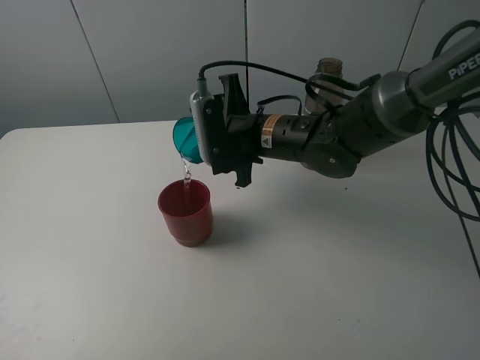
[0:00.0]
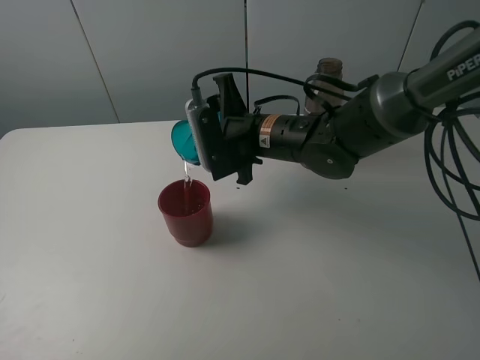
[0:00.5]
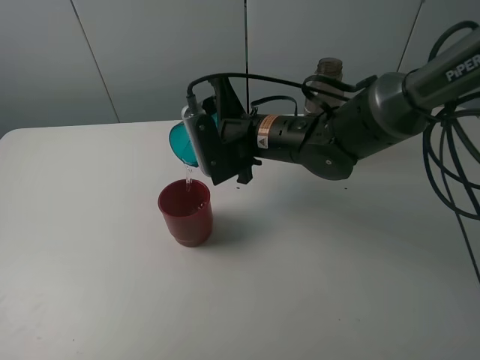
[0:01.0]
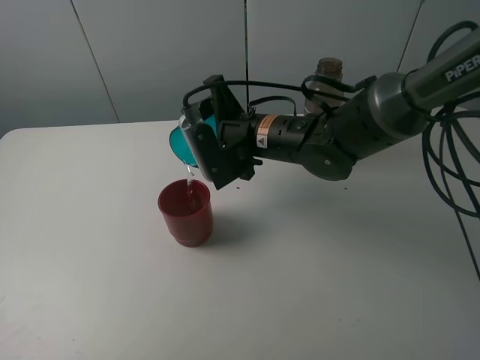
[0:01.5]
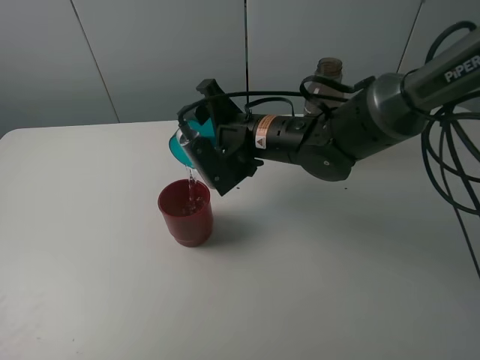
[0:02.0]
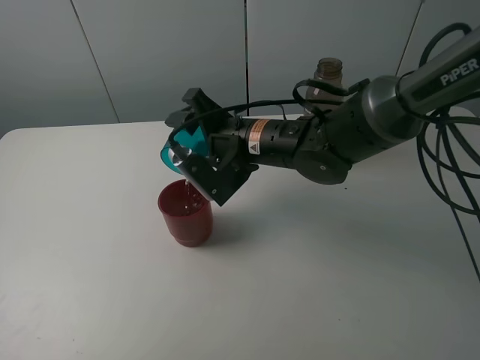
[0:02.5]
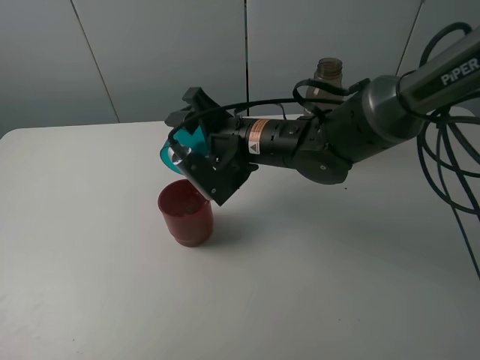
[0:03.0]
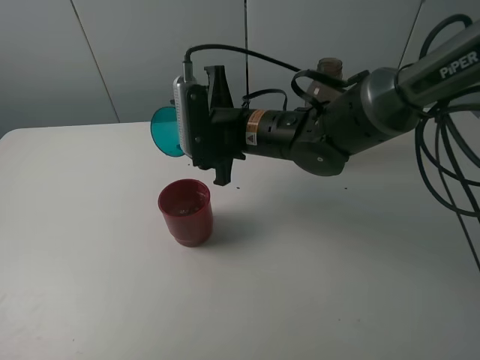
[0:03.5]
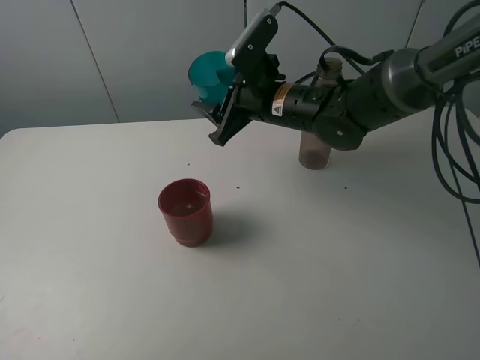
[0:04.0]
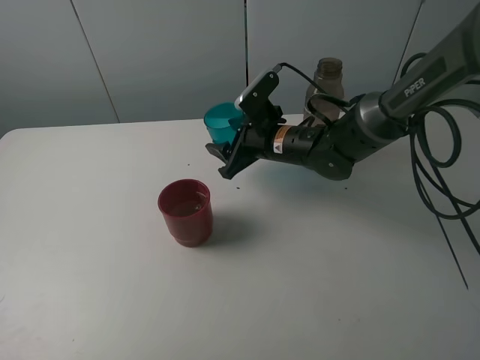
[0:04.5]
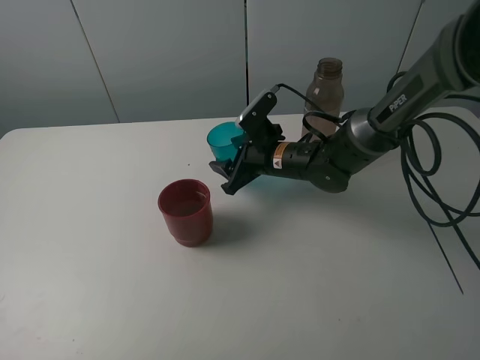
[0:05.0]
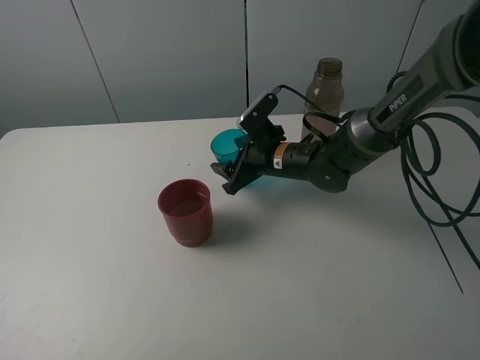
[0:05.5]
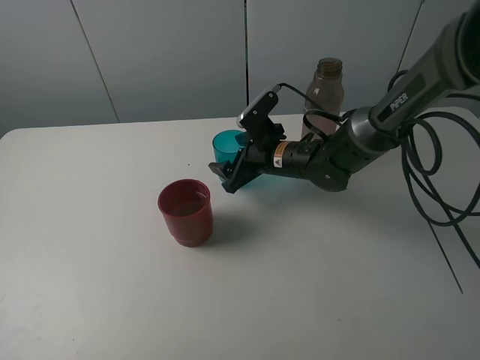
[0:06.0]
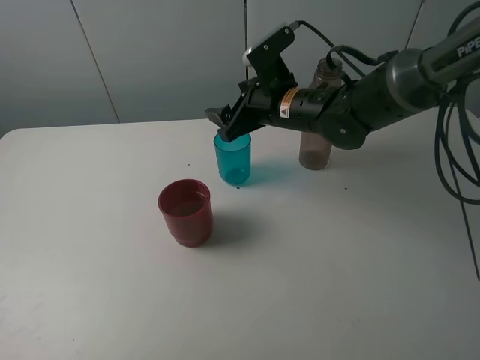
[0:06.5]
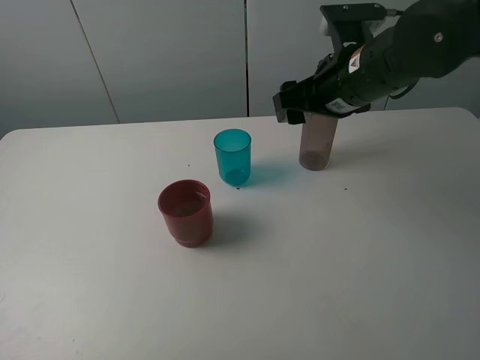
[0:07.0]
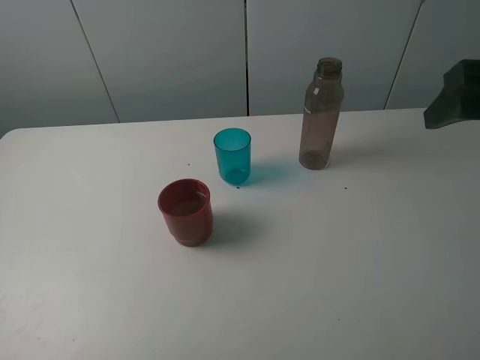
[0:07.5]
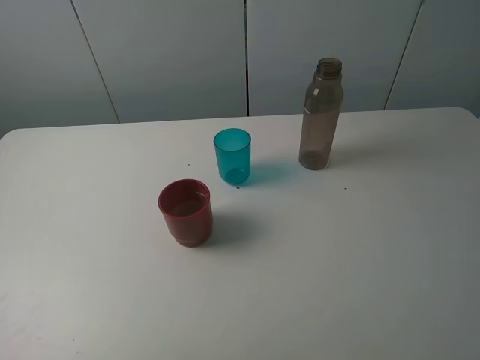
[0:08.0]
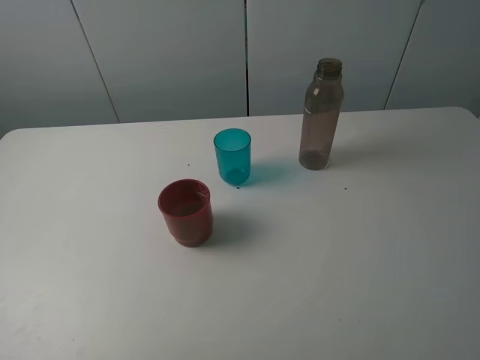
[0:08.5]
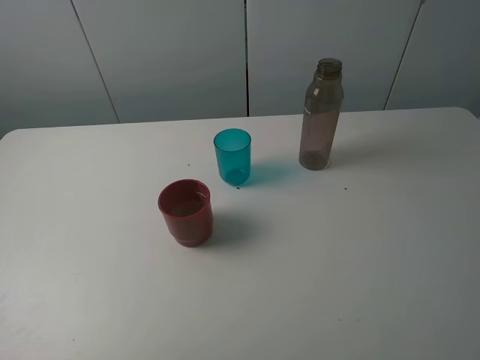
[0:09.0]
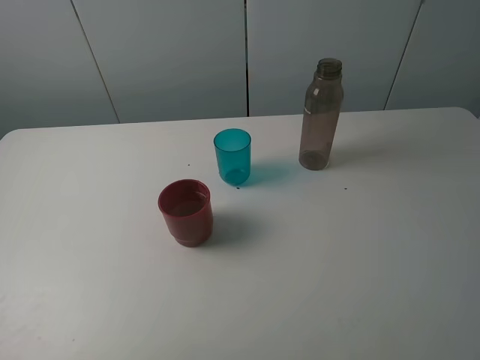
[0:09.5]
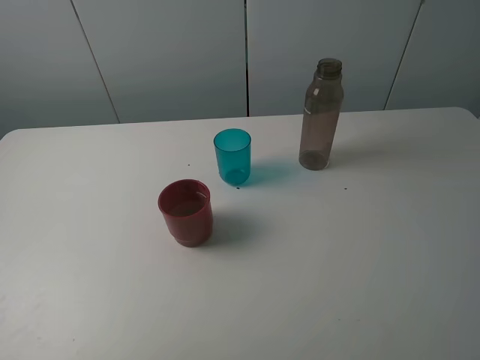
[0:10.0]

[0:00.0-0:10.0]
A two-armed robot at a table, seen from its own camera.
Task of the whole recording: pick up the bottle and pour water into the cup, then pick up the cup containing water and pour it into another cup.
Step, 0.0 to 3.0 s: Pour water from blue cup to red cup with the right gripper.
Step, 3.5 to 5.5 s: Place the blue cup with the right gripper.
2.0 to 4.0 s: The right gripper shifts by roughly 5 cm.
4.0 to 6.0 s: The right gripper goes some 10 cm downward, and opens.
6.0 to 8.0 s: The right gripper moves backward, upward and to the right, roughly 50 cm.

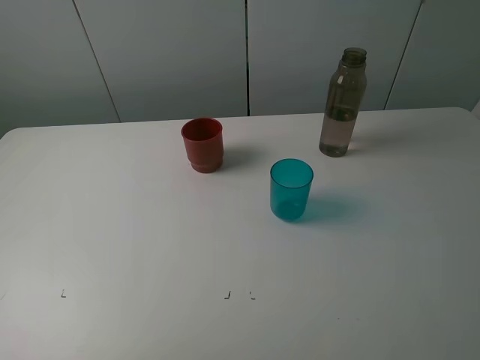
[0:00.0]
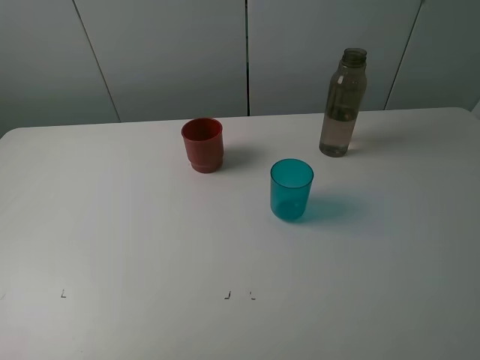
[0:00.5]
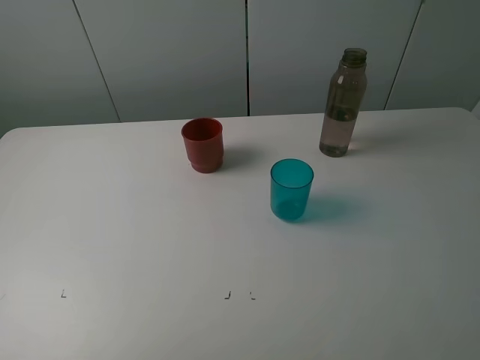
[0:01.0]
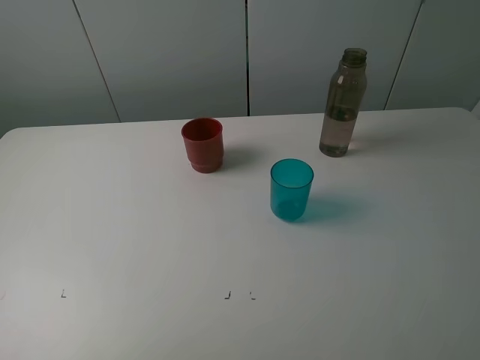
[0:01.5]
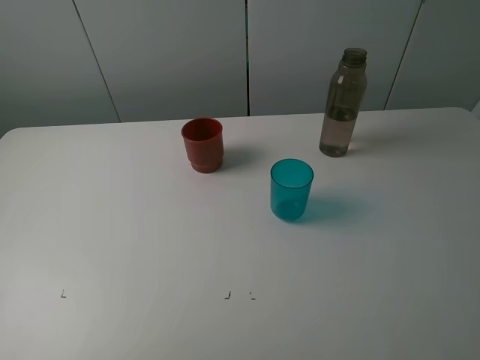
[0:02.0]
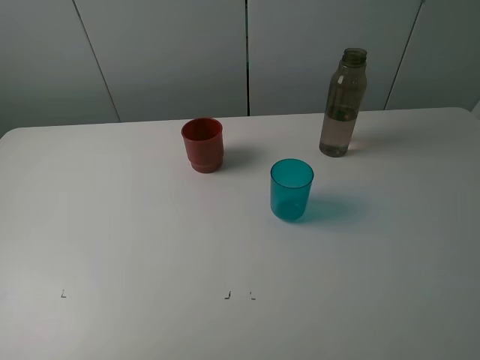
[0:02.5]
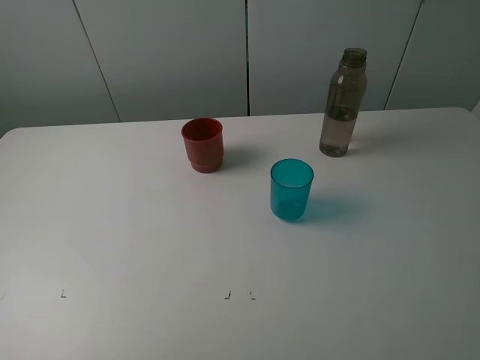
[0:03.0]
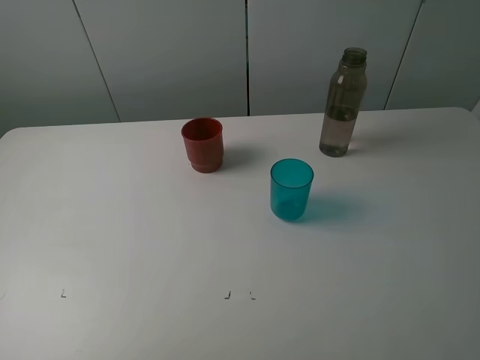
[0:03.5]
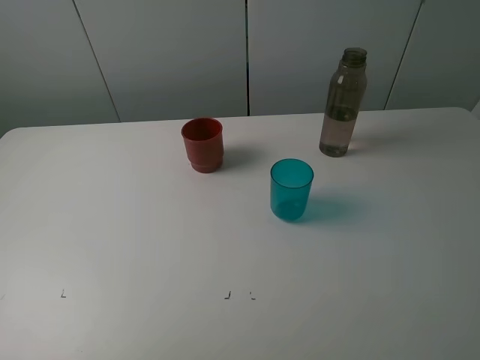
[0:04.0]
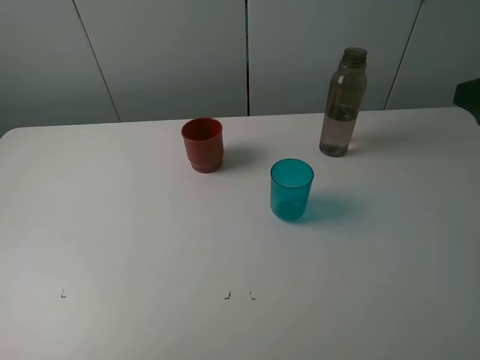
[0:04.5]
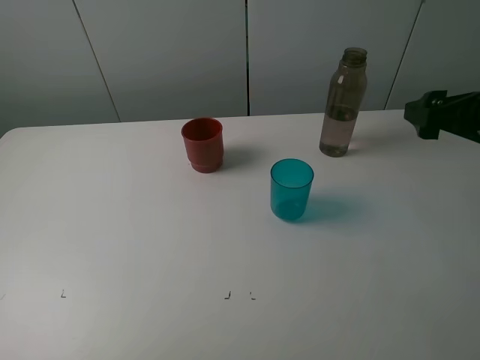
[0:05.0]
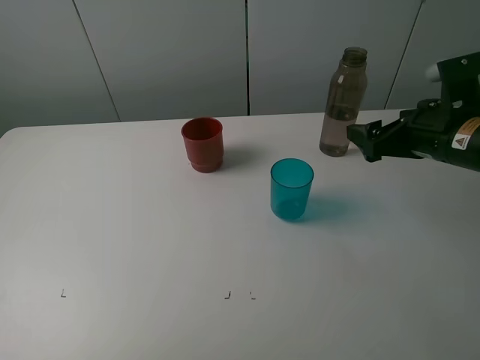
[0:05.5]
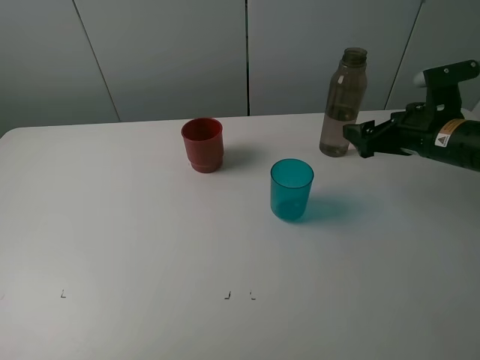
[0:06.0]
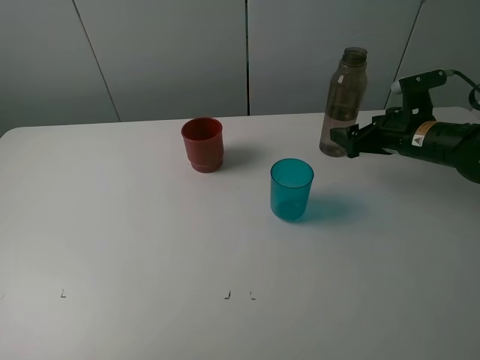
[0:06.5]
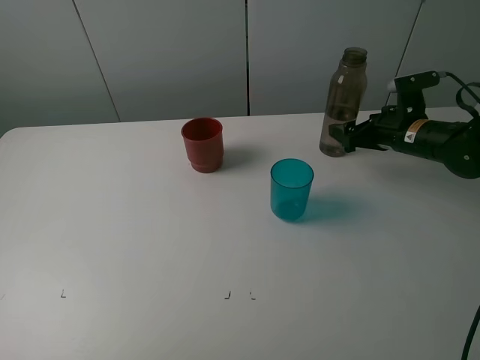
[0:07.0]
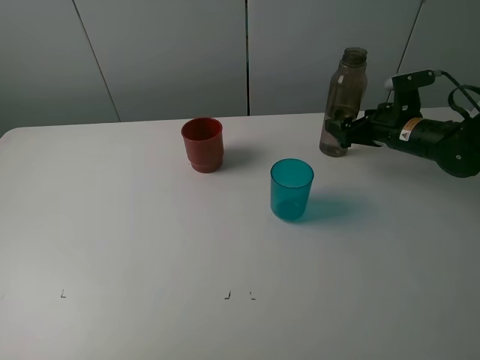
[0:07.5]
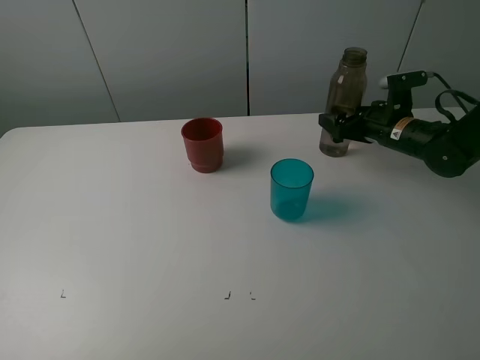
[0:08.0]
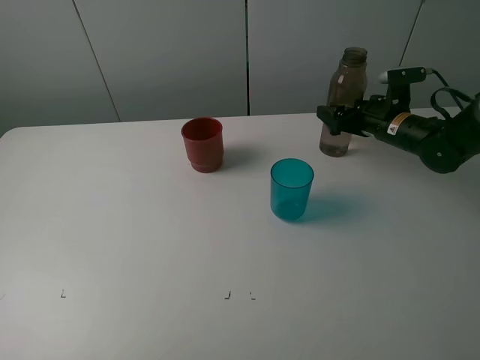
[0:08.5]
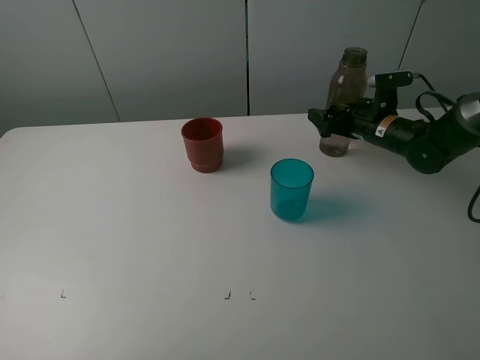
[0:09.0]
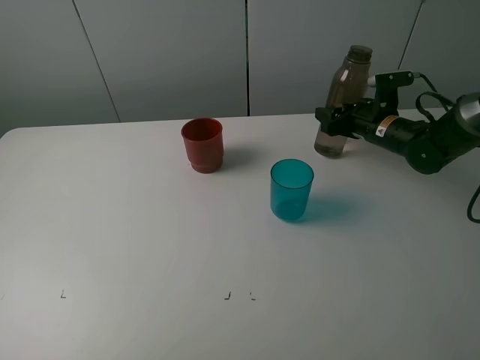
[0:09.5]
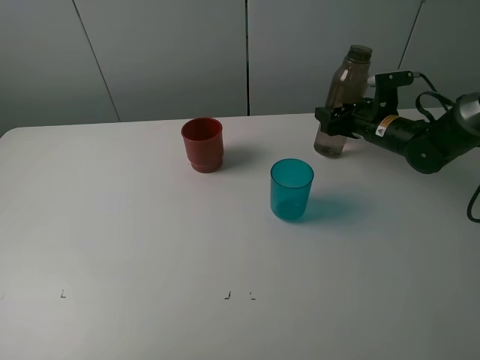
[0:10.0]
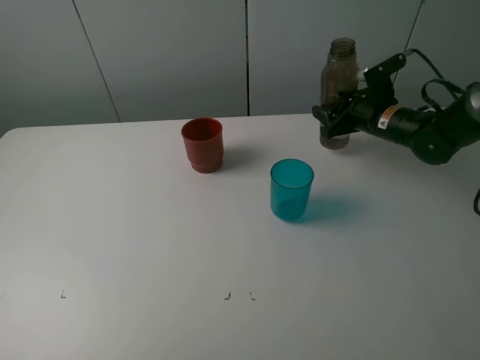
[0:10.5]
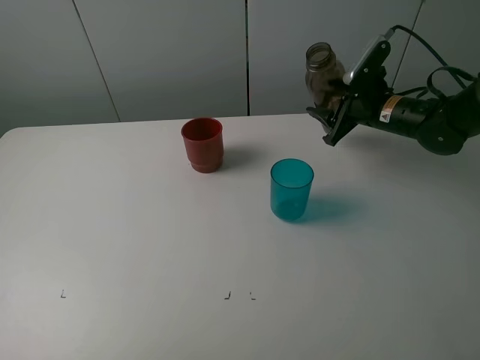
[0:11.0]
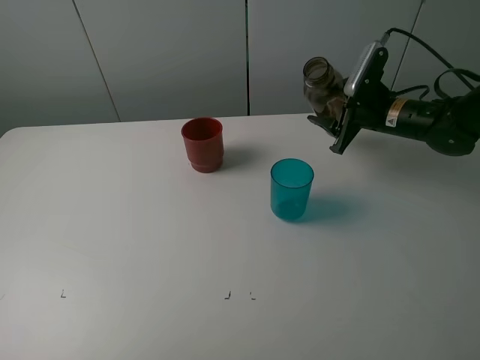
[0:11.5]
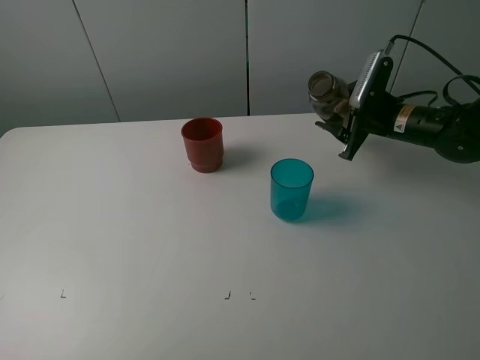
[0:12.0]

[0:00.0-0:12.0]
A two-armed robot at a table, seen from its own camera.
Task of the whole recording: pick up the bottle and pour water into the cup, then pick up the cup containing water and pour it into another cup.
Step, 0.0 to 9.5 s: Grasp the brown bottle with the right gripper.
0.0 to 2.0 s: Both grippers stay put.
4.0 to 6.0 s: The right gripper moves forward and downward, some 30 cm.
6.0 to 8.0 s: The right gripper shifts approximately 10 cm forward and downward.
8.0 to 10.0 s: The right gripper closes its fingers.

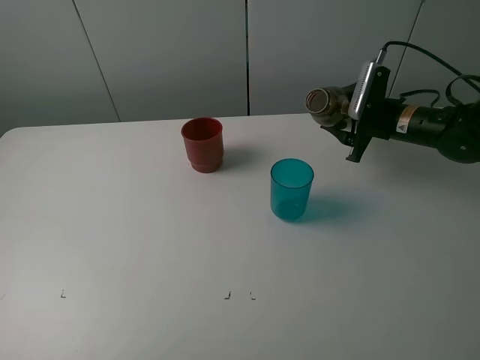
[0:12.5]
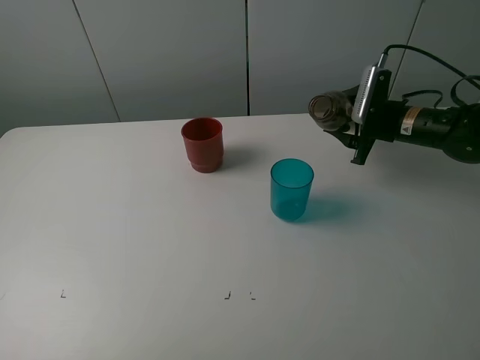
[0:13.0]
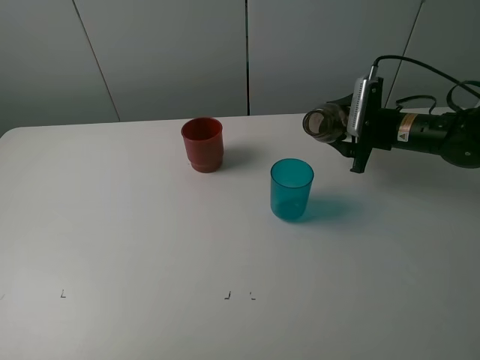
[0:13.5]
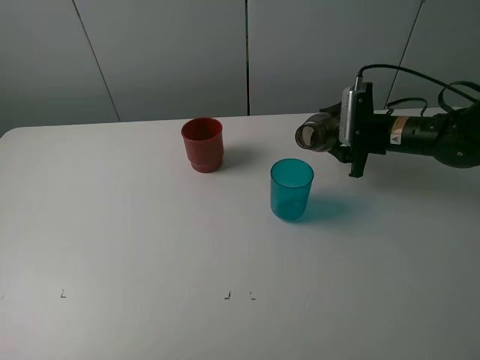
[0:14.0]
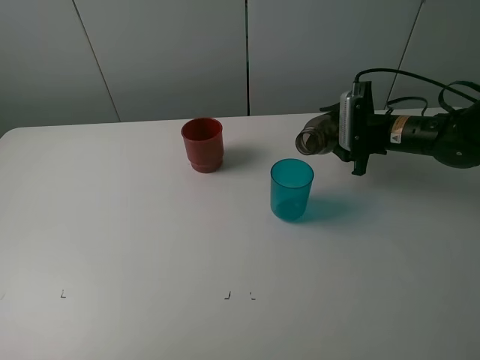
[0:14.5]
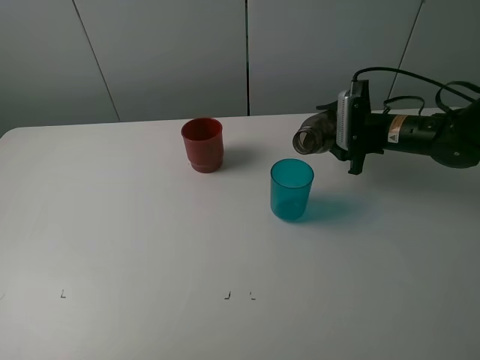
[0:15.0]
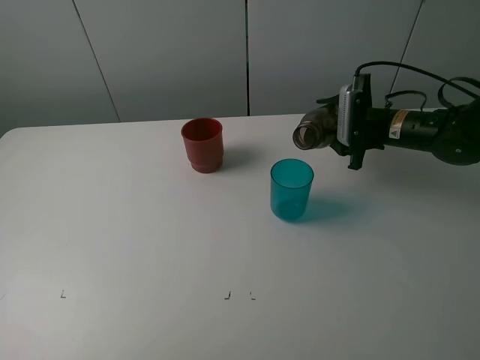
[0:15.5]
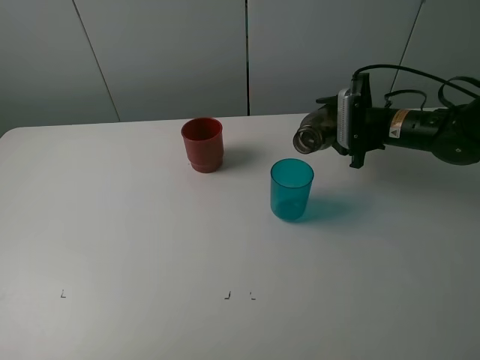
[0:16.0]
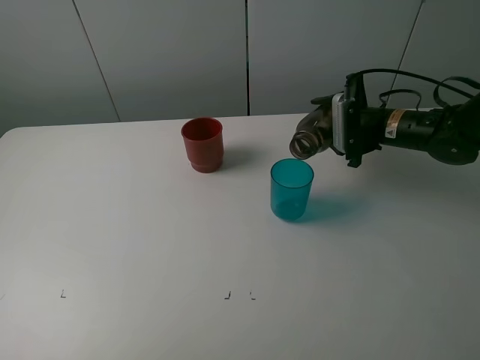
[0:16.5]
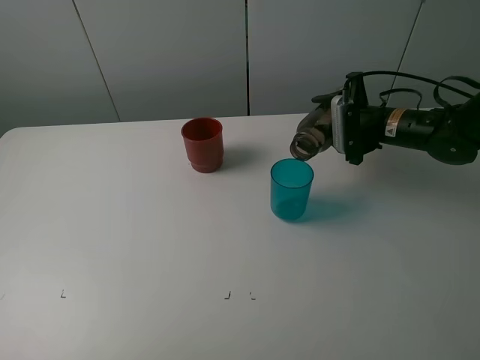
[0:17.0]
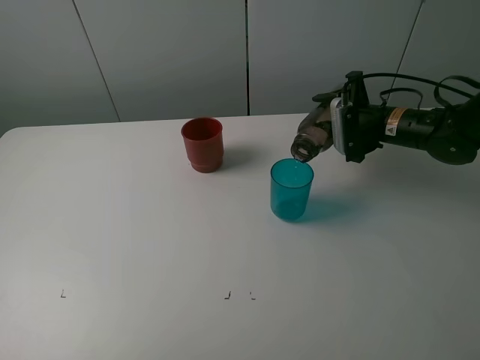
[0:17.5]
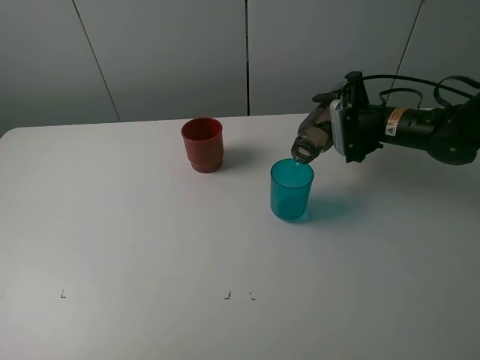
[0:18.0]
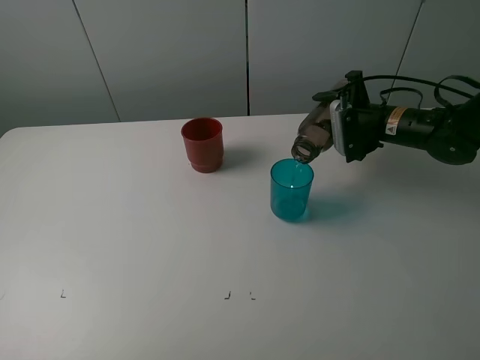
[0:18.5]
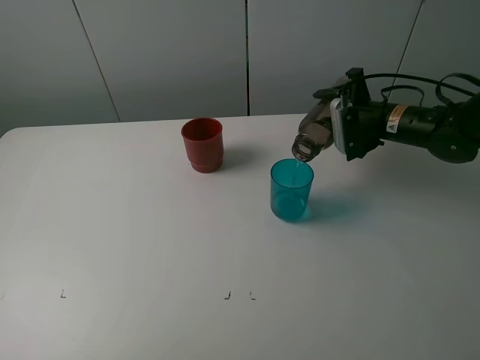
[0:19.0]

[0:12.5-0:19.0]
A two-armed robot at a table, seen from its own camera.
Task of the whole recording: pick up the bottle and pour water into the cup, then pick up the cup containing water and pour it into another cup.
12.5 to 14.5 s: There are only small adjustments of the grippers.
14.5 to 17.0 s: The grippers move only a little.
17.0 to 19.0 s: The grippers stay close to where they were, moving slightly.
